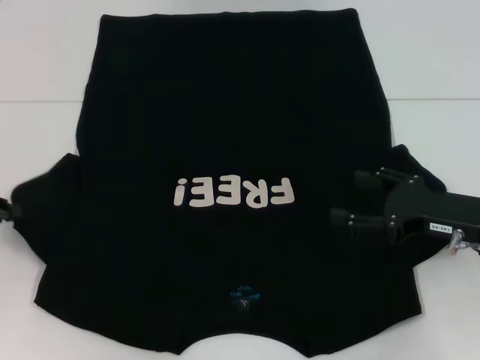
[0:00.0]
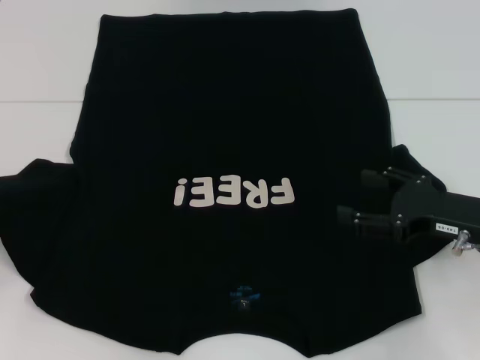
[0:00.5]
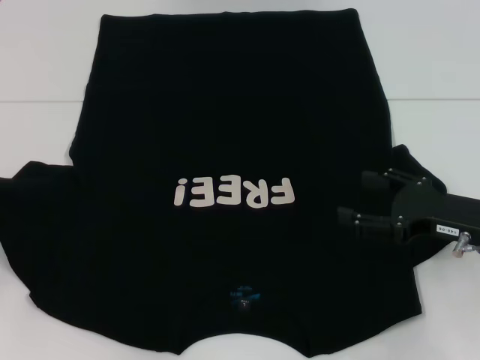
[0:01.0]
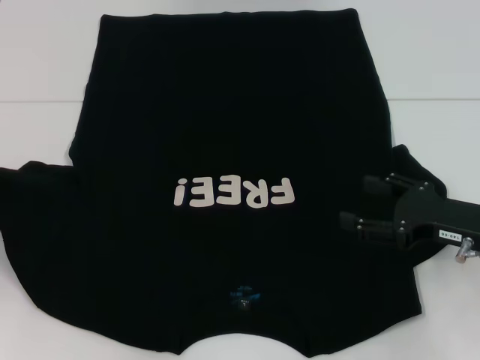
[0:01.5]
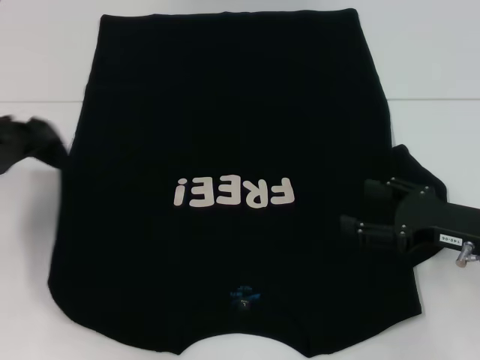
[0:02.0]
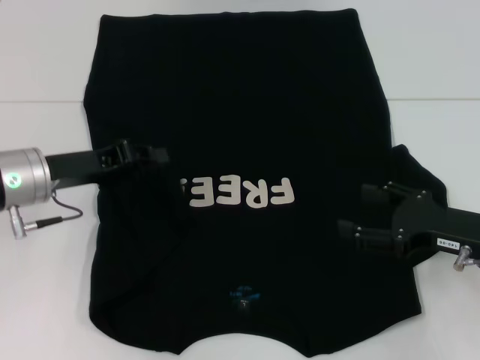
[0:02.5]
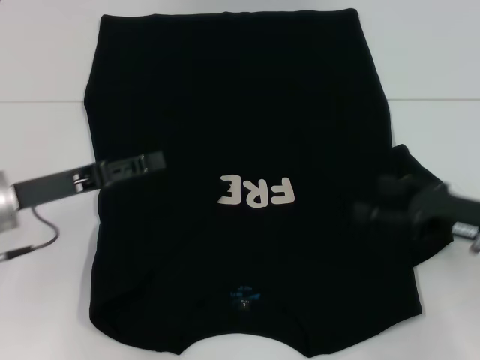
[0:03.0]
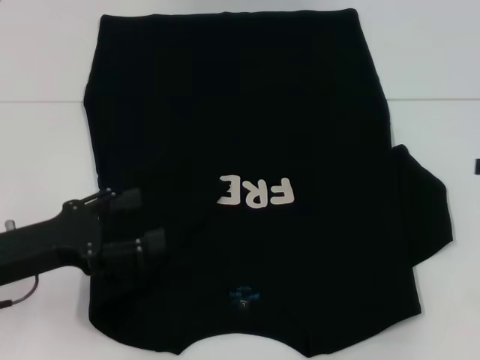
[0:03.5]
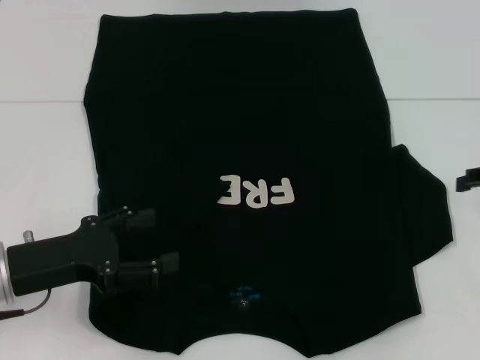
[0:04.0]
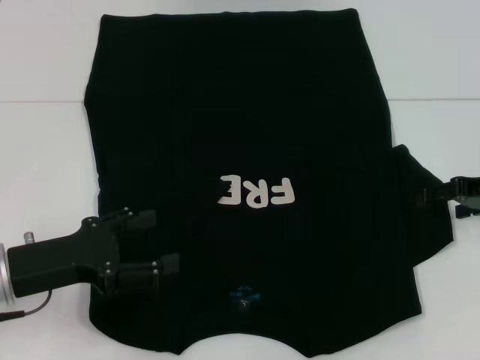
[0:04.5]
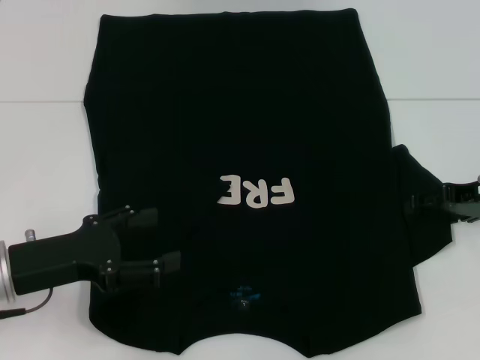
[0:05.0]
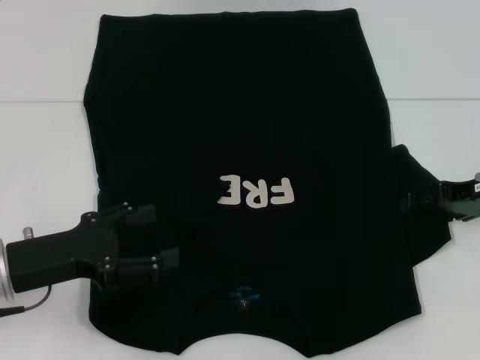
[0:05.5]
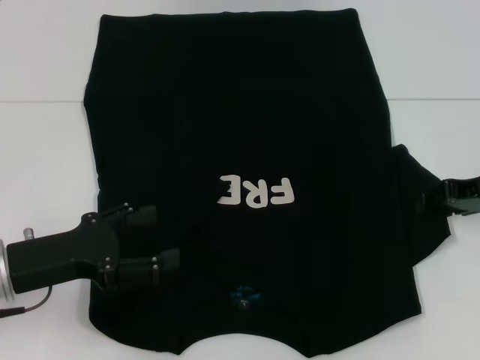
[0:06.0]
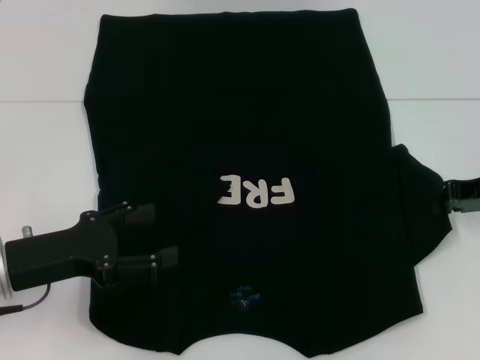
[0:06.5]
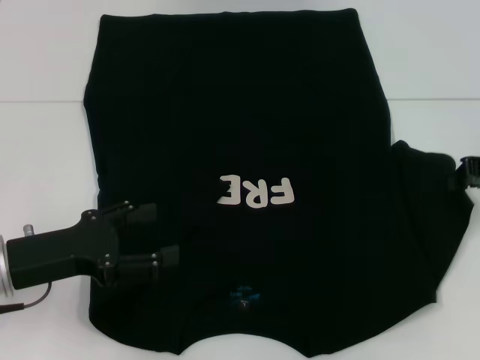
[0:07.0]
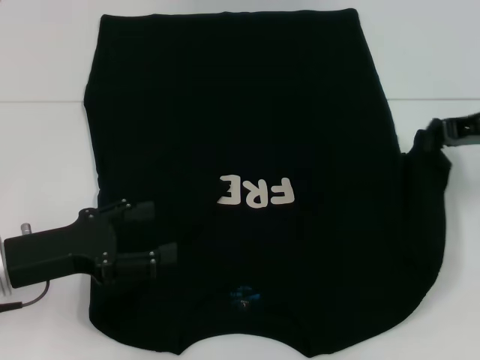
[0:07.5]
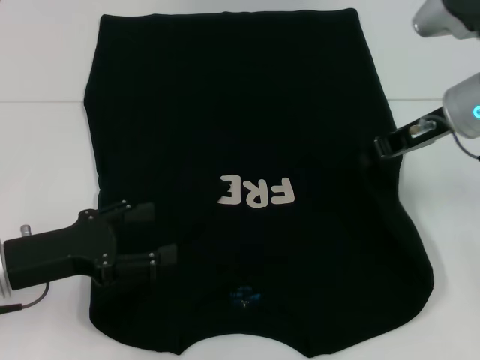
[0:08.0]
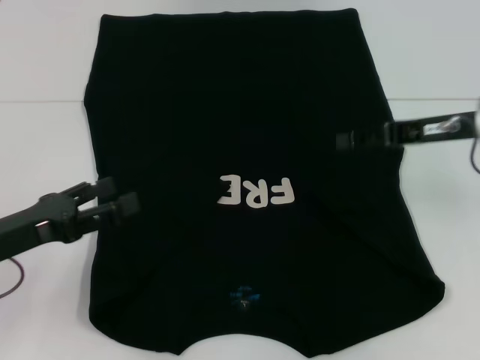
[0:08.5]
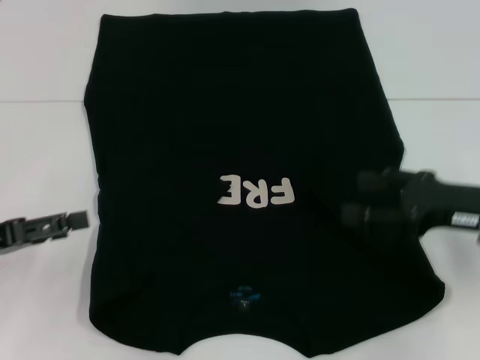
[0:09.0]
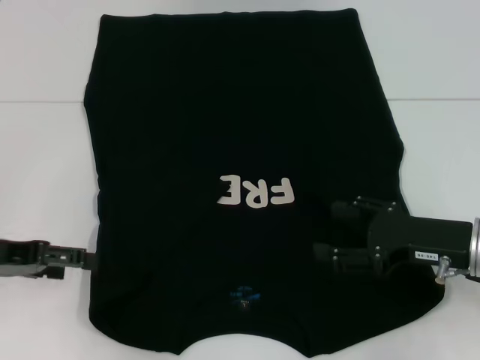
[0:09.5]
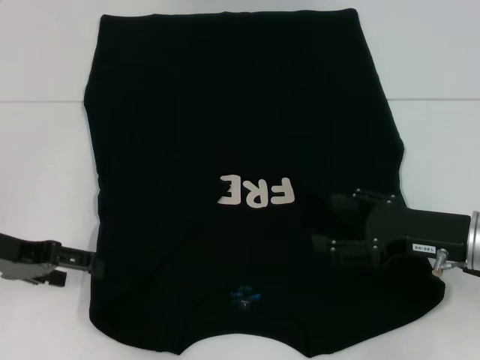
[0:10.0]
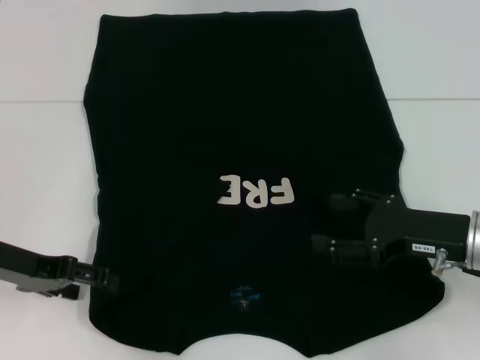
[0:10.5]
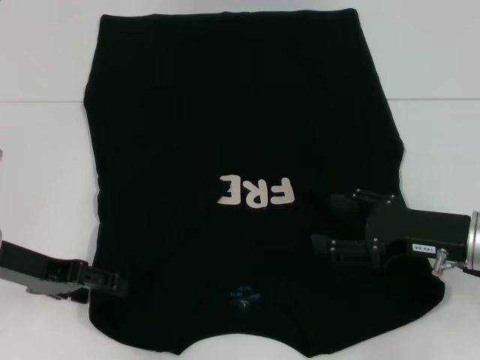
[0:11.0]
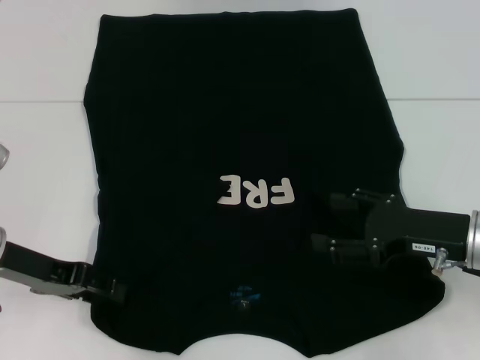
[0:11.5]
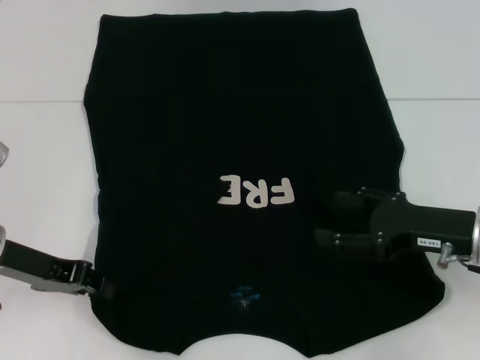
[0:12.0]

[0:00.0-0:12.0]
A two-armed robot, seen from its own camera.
Step, 0.0 to 2.5 s: Fold the bottom left sleeve with your left hand.
Step, 3.0 to 8.0 s: Fold the bottom right sleeve with your right hand.
0.0 to 2.0 s: The left gripper changes place by about 5 cm.
2.0 to 4.0 s: The left gripper is displaced to the right, backward and downward by approximately 10 cm, and opens; the right gripper is displaced to the right, forward and upward by some 15 cm.
4.0 to 6.0 s: The right gripper travels to the left by approximately 5 cm.
6.0 to 8.0 s: The right gripper heads to the left and upward, covering approximately 10 cm, and closes up.
8.0 to 10.0 s: The right gripper goes about 15 cm backward and downward, and opens its fingers. The left gripper ends up roughly 5 cm from where it was.
10.0 to 12.0 s: The left gripper closes its fingers.

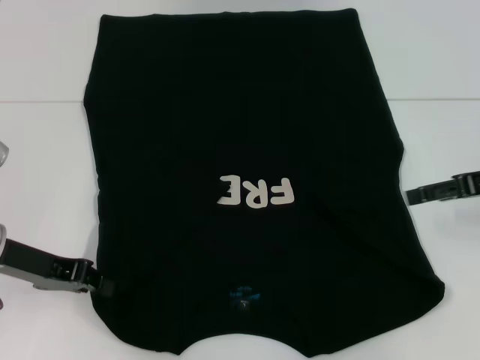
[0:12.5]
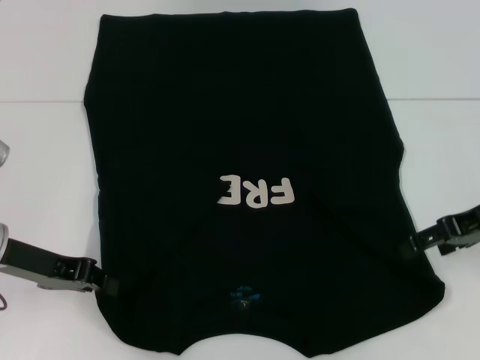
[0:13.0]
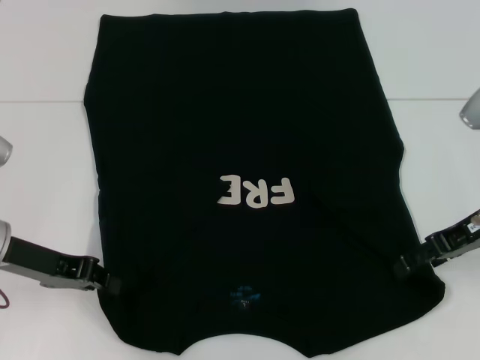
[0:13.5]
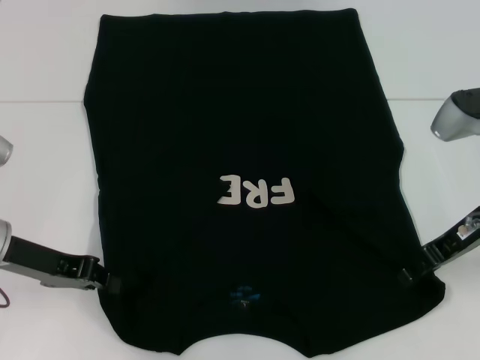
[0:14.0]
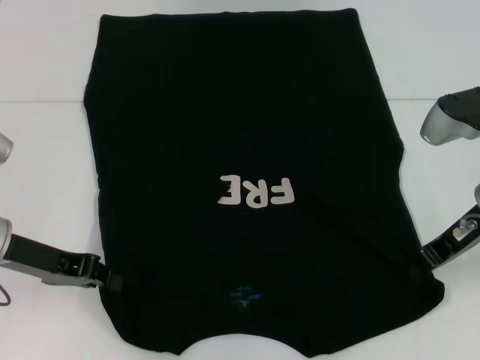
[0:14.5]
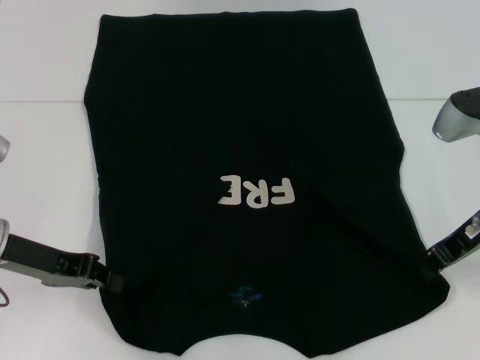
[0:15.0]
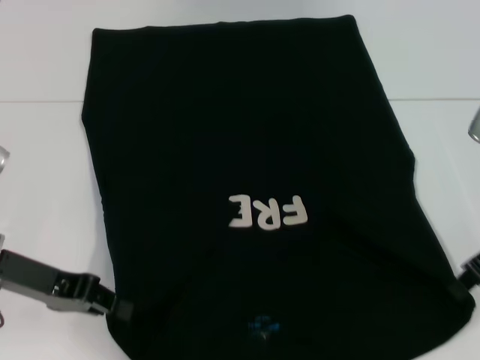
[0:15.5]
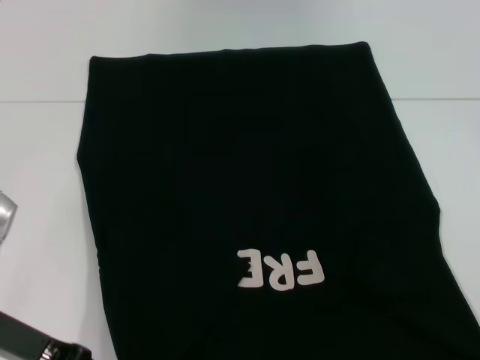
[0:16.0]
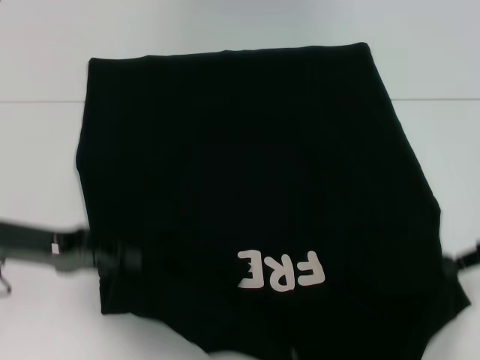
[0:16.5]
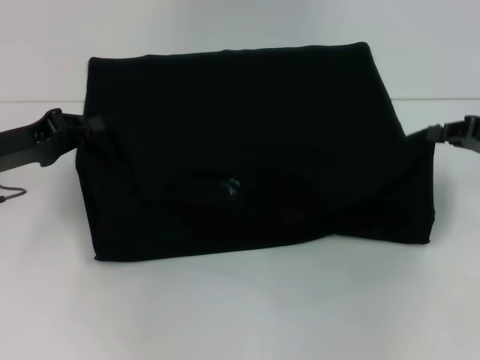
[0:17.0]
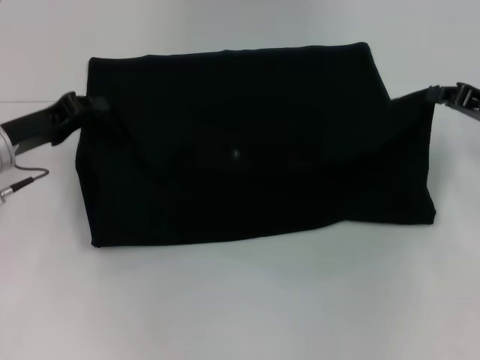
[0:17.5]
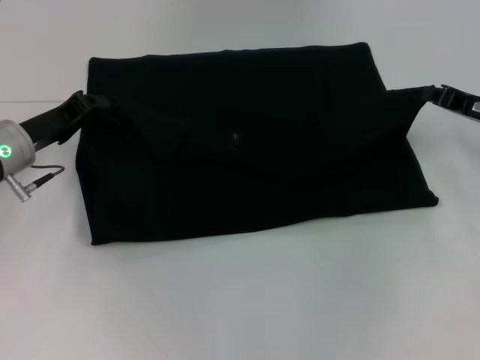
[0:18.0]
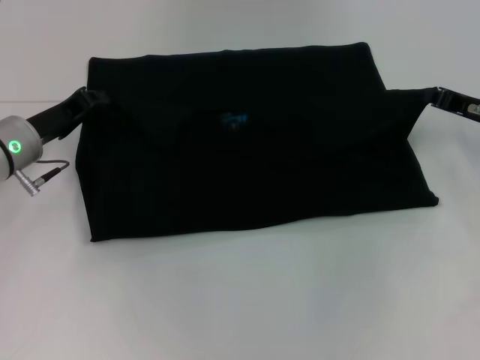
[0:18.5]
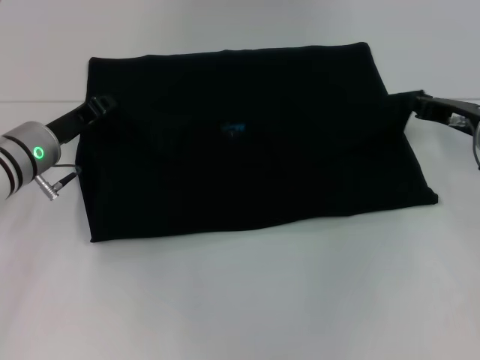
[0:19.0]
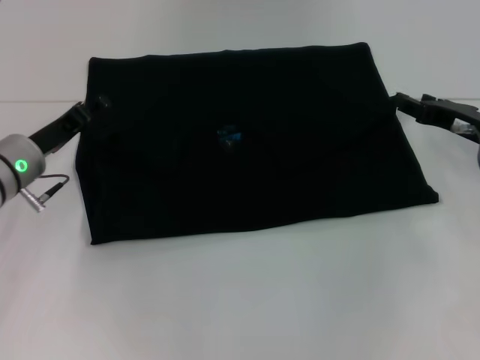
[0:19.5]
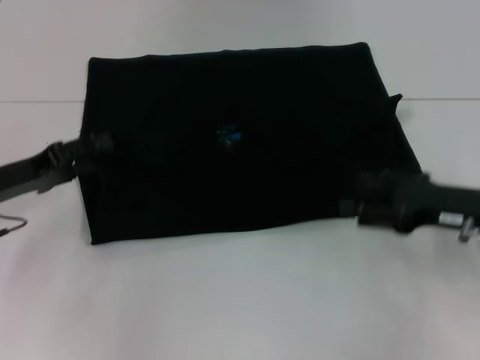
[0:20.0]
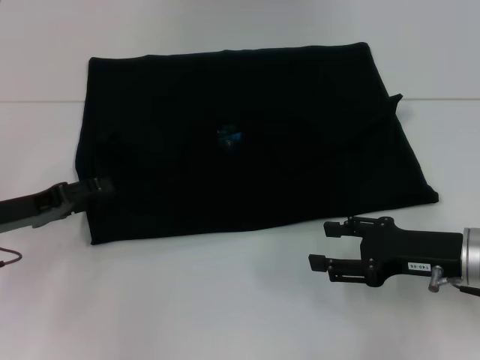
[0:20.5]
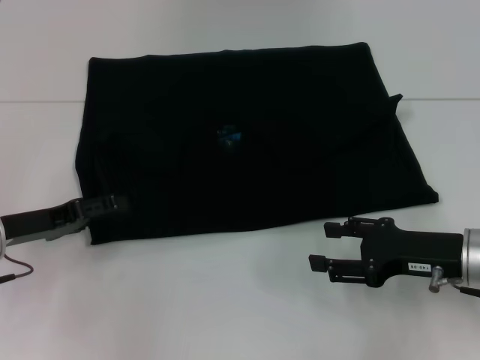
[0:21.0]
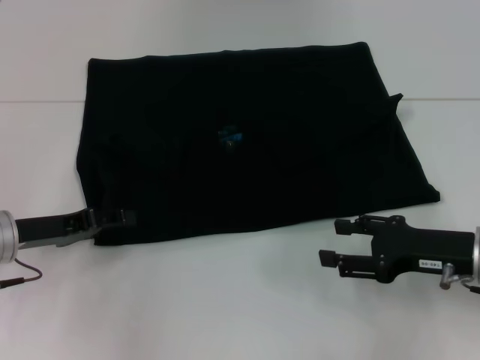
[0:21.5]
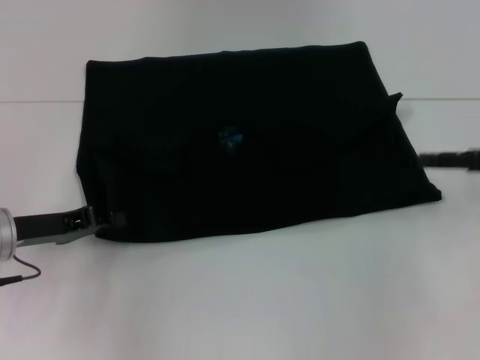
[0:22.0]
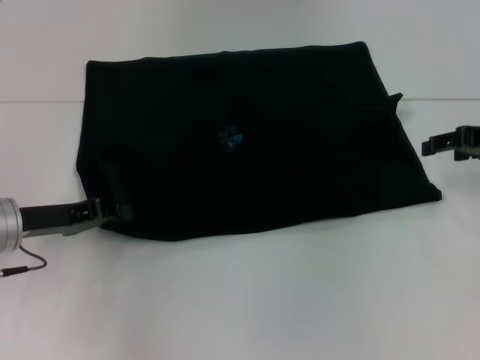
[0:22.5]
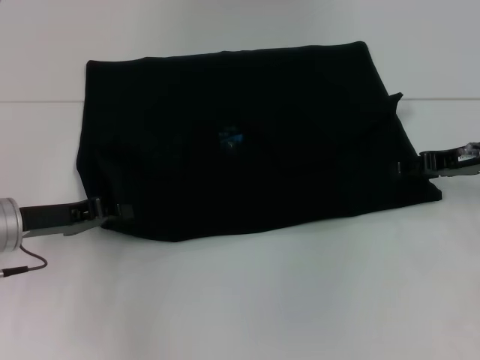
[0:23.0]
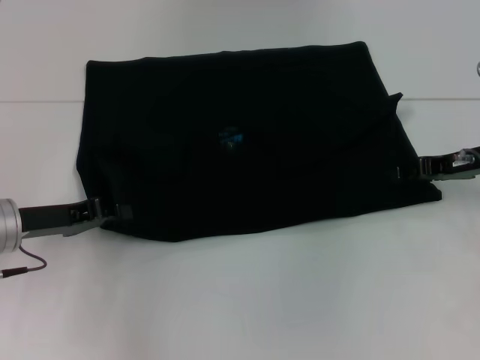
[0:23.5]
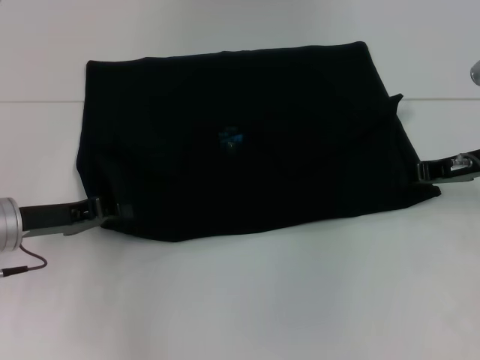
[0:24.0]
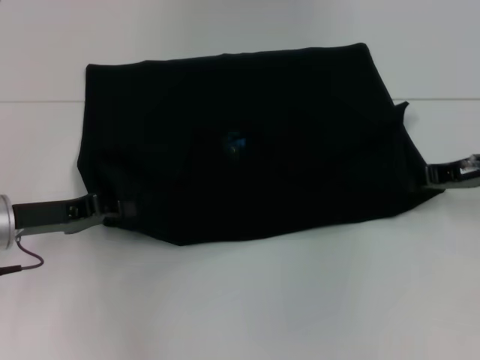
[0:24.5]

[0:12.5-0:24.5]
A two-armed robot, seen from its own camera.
Step, 12.5 to 14.0 s: Grab the bottom right corner with your right hand.
Step, 14.5 to 19.5 s: Fold the clothes with your left hand.
Step, 14.5 to 19.5 s: Fold the clothes with your right hand.
12.5 to 14.5 s: The right gripper travels to the left by approximately 10 cm, and closes its fingers.
14.5 to 16.5 s: The right gripper moves to the right, some 10 cm, and closes its fingers.
16.5 to 18.5 s: The grippers both shift forward by roughly 10 cm.
18.5 to 20.5 s: The grippers both shift backward by roughly 10 cm. The right gripper opens, while the left gripper opens.
20.5 to 22.5 s: The left gripper closes up; the right gripper is displaced forward, upward and to the right by some 15 cm.
22.5 to 24.5 s: The right gripper closes up.

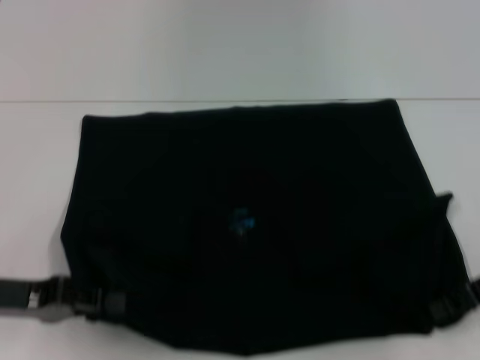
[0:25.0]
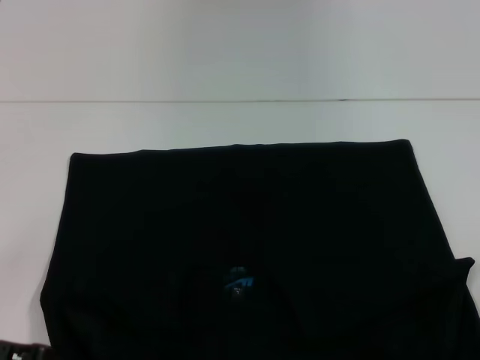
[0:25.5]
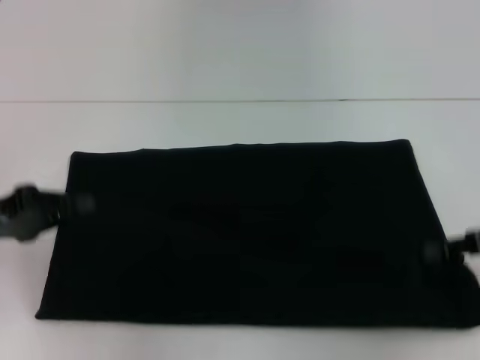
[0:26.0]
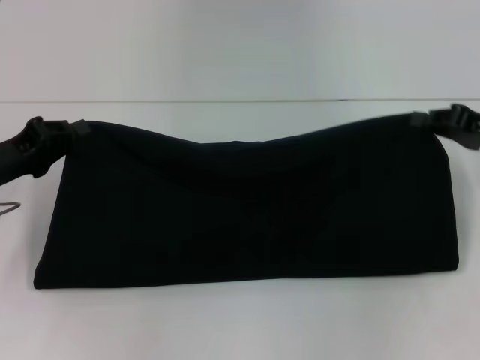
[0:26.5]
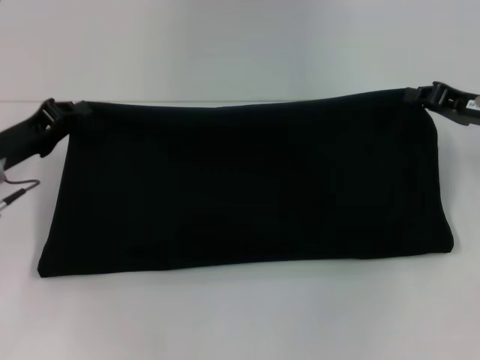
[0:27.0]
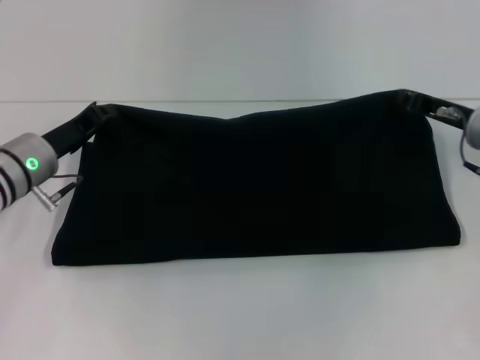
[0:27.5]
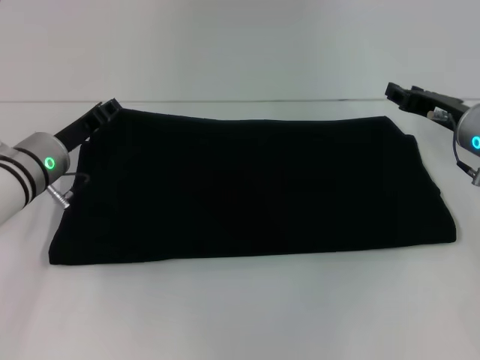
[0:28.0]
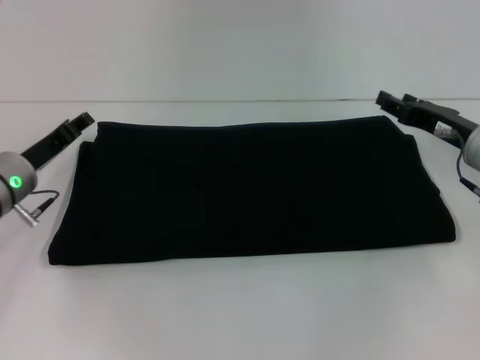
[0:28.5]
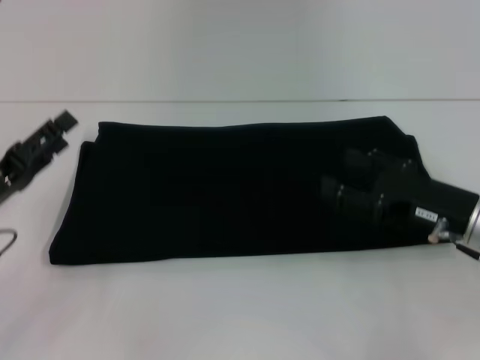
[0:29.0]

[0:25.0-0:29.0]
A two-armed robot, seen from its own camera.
Step, 26.0 to 28.0 s: Fold the clothes with your right hand.
25.0 to 27.0 s: The two grippers go some 10 cm forward.
27.0 to 29.0 s: The right gripper is displaced backward and downward by approximately 10 cm, and opens up, while the left gripper shifts some 10 cm backward, and opens.
